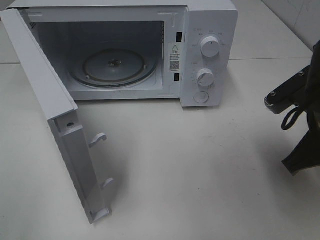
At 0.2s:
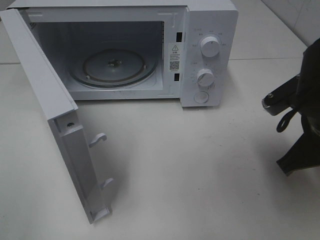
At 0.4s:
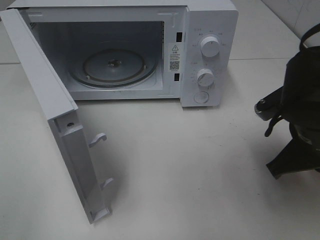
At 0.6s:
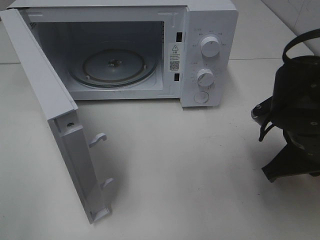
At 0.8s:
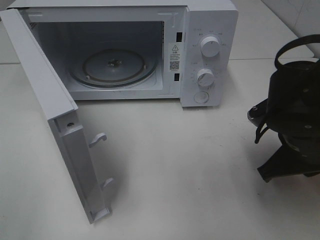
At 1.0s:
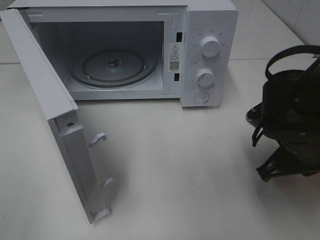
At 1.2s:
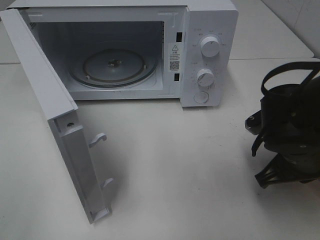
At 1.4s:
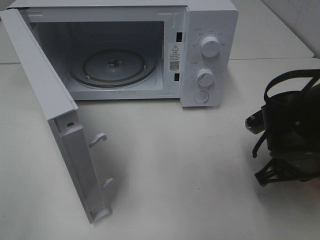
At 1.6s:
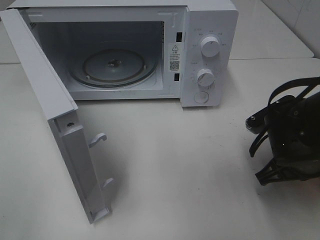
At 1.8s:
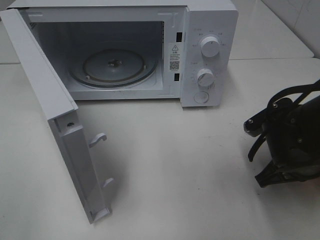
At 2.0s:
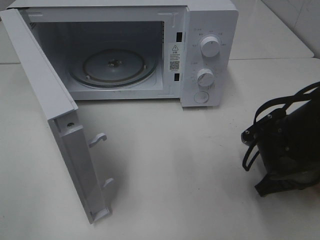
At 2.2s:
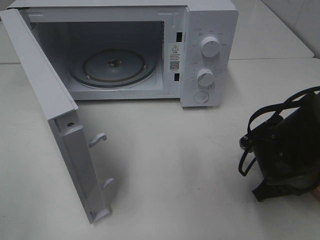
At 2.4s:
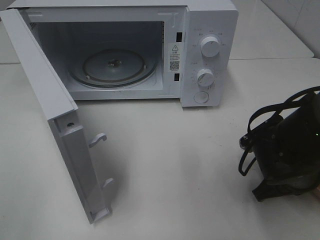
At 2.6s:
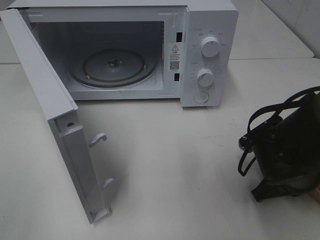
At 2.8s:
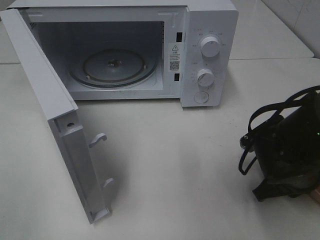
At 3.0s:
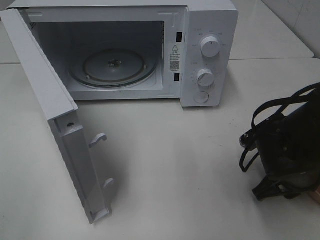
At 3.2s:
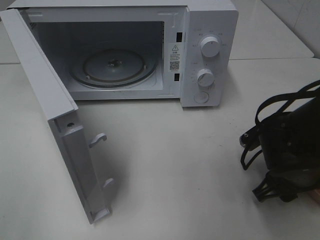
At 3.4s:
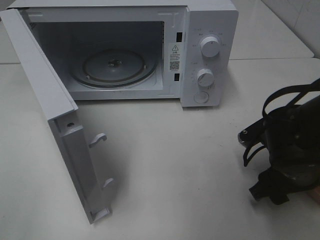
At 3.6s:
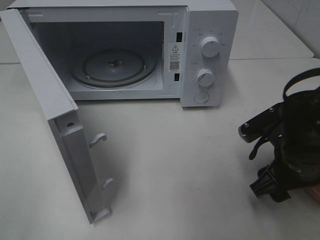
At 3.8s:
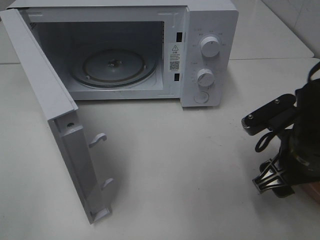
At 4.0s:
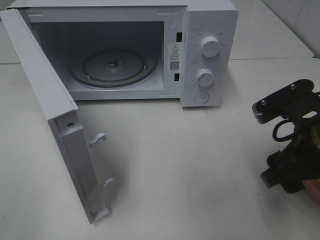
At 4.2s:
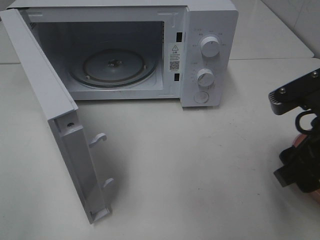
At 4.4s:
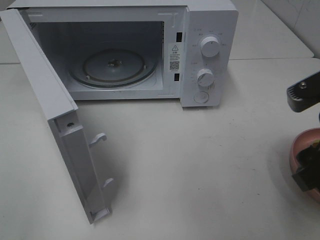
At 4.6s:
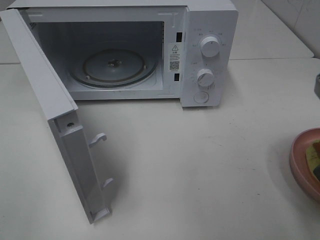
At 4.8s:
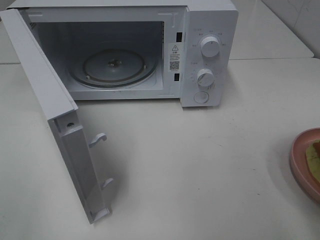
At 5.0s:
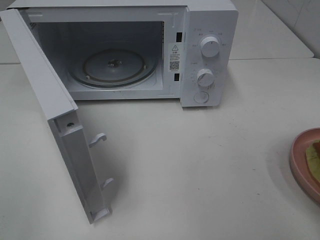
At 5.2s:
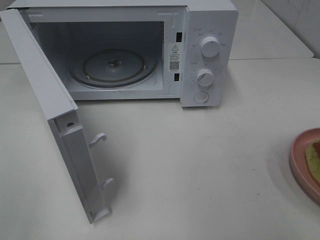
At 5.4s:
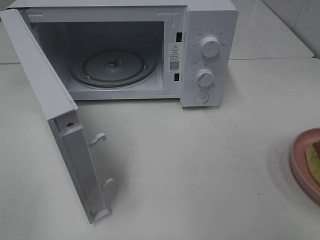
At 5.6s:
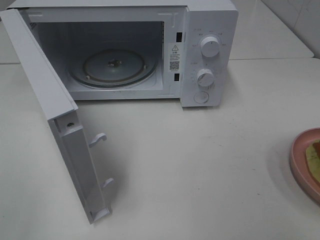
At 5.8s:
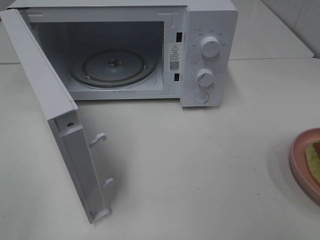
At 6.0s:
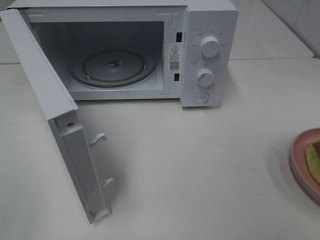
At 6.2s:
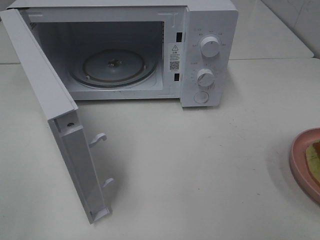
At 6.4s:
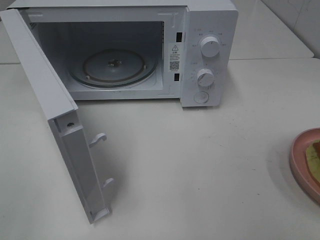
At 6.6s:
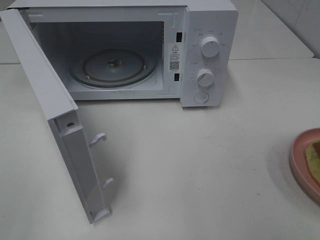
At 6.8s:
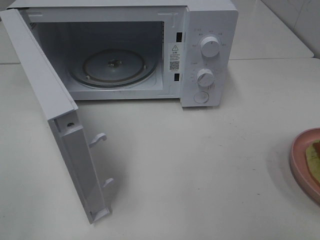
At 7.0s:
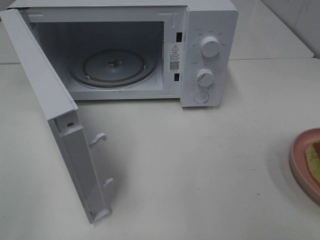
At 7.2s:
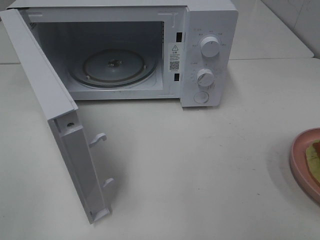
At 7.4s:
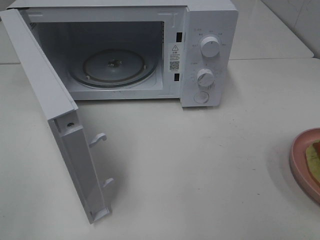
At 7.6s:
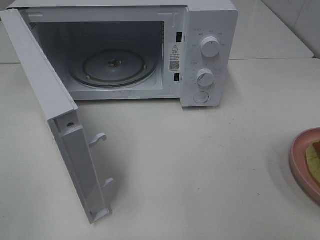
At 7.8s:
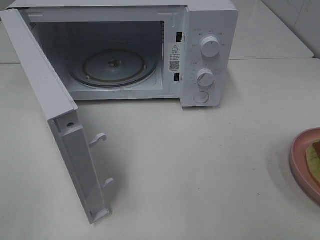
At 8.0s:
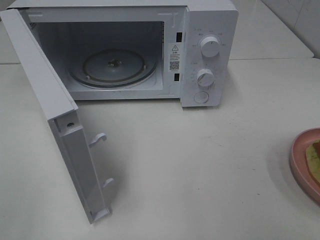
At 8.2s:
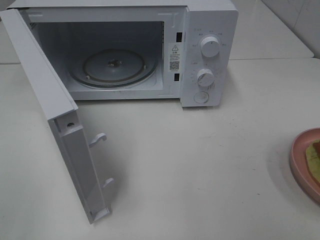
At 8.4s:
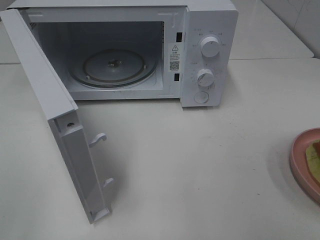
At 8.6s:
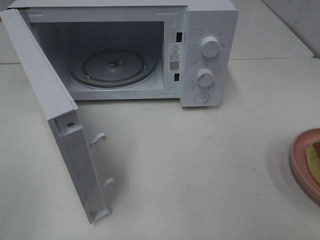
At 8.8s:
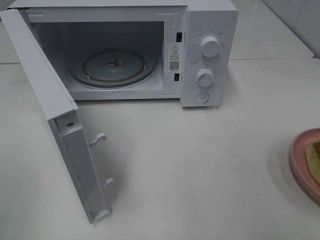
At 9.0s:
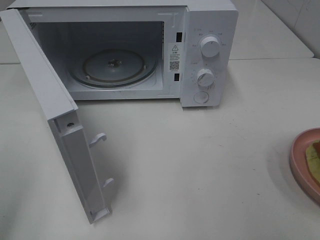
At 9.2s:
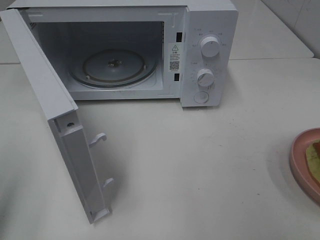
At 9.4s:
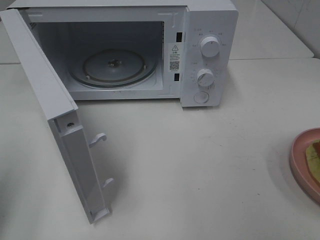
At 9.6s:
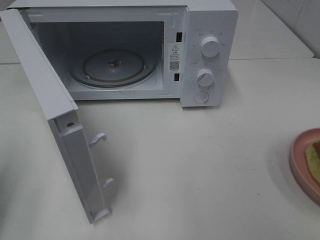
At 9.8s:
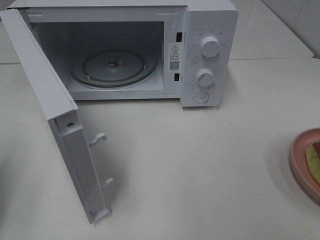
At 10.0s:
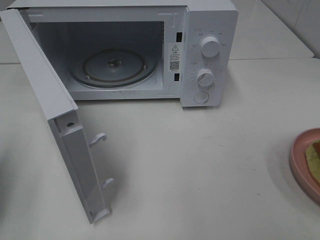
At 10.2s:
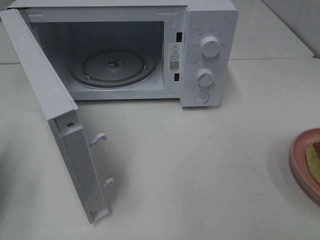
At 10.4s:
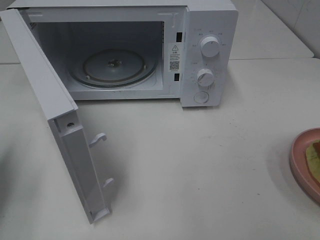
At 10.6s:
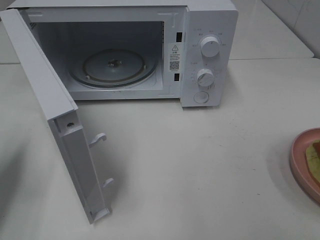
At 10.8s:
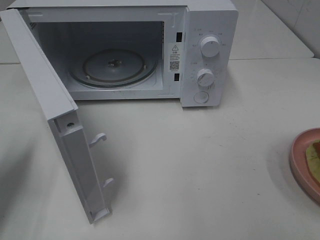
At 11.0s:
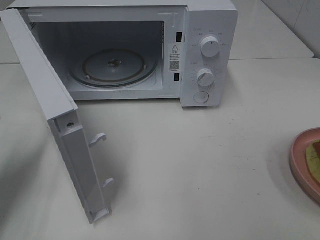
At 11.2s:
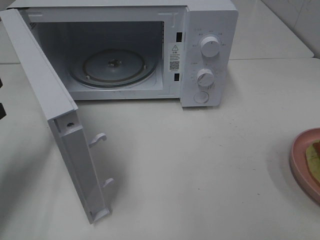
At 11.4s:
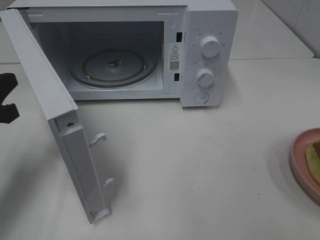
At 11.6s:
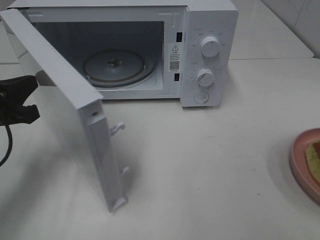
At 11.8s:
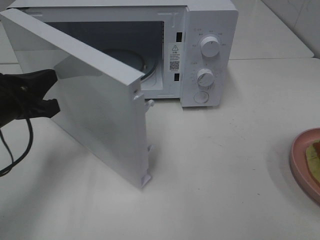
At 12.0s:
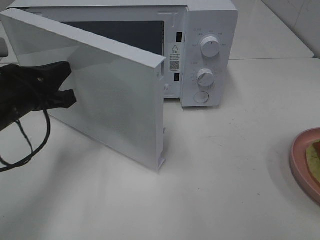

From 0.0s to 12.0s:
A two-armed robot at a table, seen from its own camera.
Task of the whole recording: Heat Sandwich.
Step, from 0.0s to 4.4s: Right hand: place the plate on the table.
From 0.0s to 1.6s: The right gripper travels downward by roughly 10 cm.
From 1.6s to 3.0s: The right gripper opens its fingers.
From 3.0s to 4.4s: The right gripper heads upward and backward, covering approximately 15 cm.
From 4.4s to 6.0s: The right gripper heads backward, to the right and upward, covering approximately 20 cm.
From 9.0s to 10.4s: The left gripper shifts about 15 cm forward and downward, and closes its fingers.
From 10.4s to 12.0s: The left gripper travels to the right and forward by approximately 15 cm.

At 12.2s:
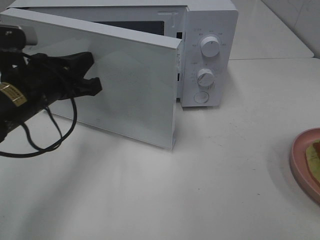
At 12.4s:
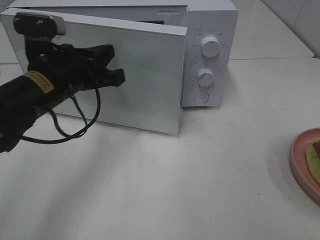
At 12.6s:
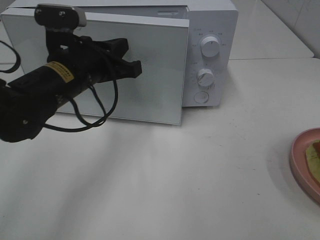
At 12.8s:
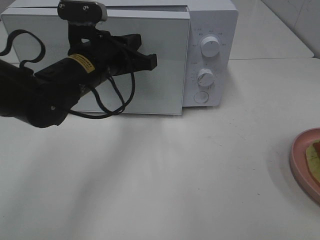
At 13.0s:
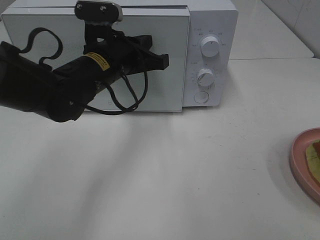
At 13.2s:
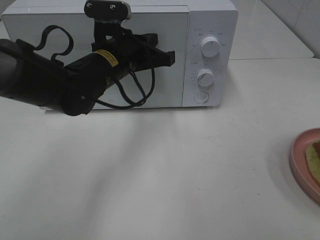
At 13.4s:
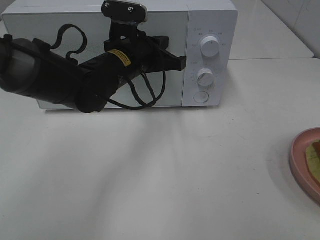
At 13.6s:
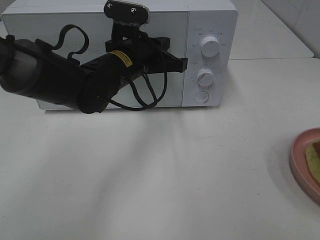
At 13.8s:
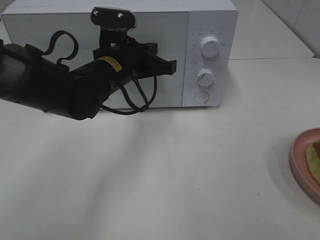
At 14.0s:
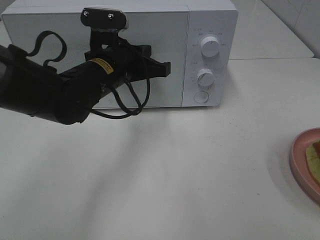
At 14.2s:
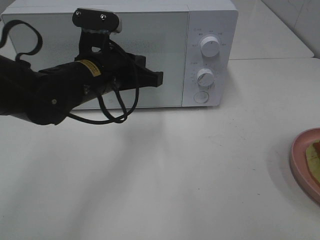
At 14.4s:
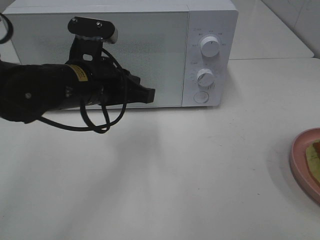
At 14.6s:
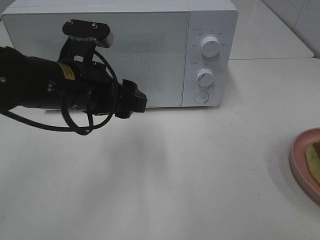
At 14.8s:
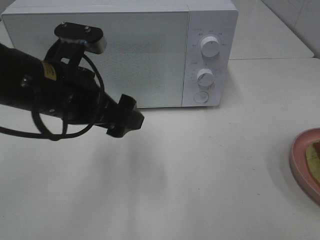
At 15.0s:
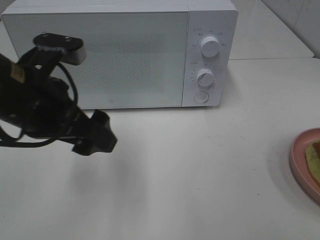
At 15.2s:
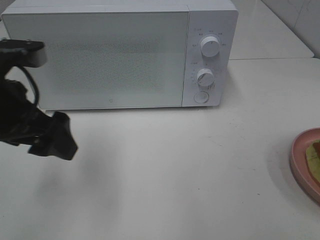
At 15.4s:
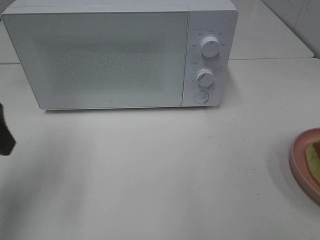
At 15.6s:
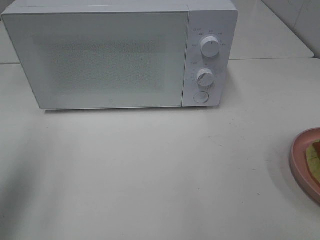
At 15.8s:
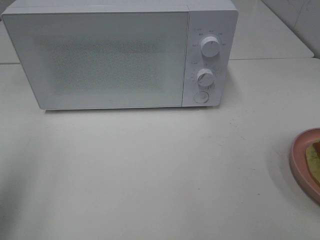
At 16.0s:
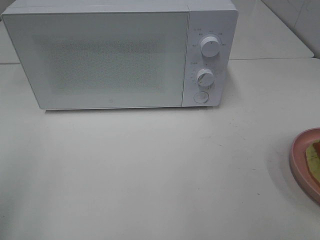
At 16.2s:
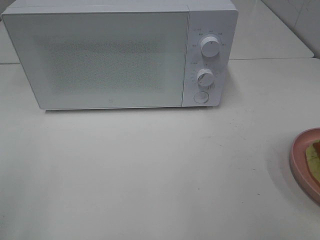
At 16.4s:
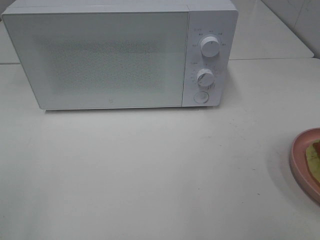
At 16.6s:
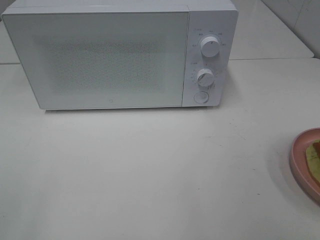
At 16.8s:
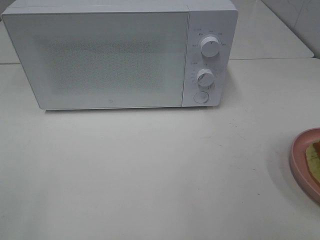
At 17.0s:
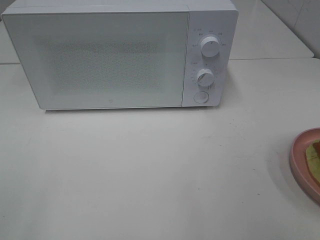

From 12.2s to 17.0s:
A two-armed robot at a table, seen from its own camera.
Task of the whole recording: Heat Sandwich.
Step, from 12.2s to 14.4s: Left hand: close the microwave door.
From 12.2s to 13.8s: The left gripper goes roughly 15 cm to the right and forward.
From 13.8s to 15.4s: The left gripper shifts roughly 25 cm to the left, backward and upward, and opens its fingers.
From 15.4s to 17.0s: The left gripper shifts about 20 cm backward.

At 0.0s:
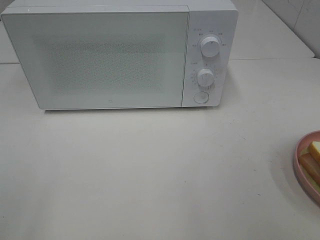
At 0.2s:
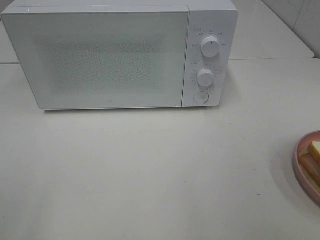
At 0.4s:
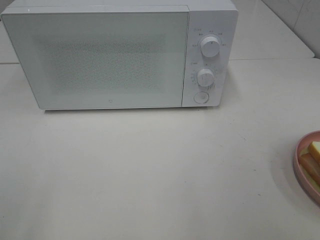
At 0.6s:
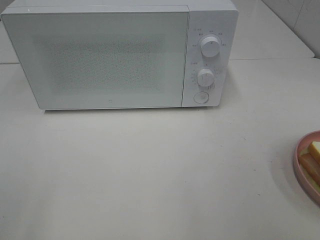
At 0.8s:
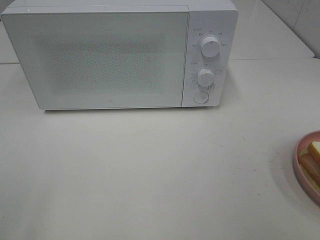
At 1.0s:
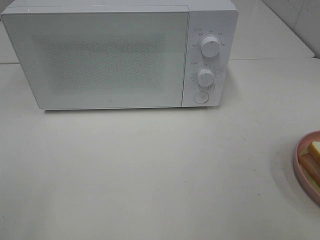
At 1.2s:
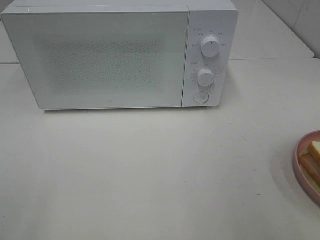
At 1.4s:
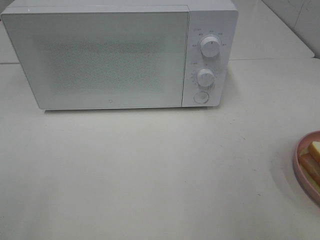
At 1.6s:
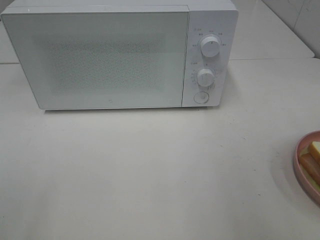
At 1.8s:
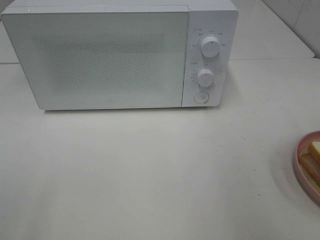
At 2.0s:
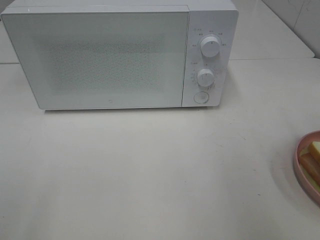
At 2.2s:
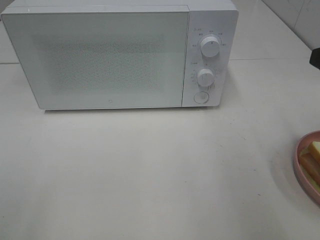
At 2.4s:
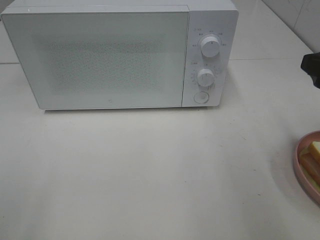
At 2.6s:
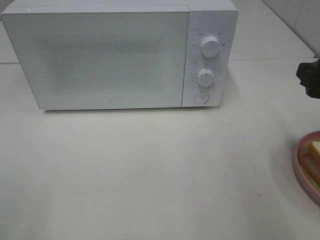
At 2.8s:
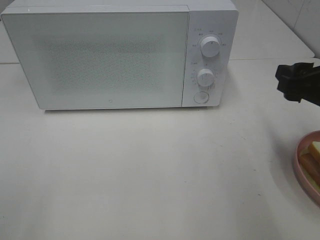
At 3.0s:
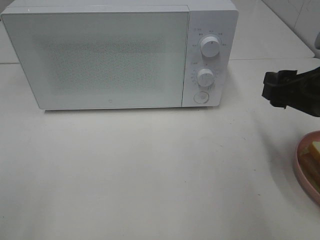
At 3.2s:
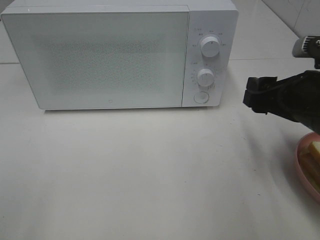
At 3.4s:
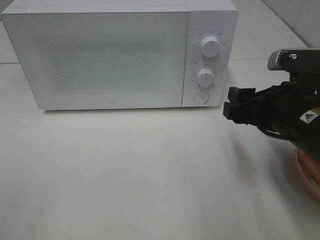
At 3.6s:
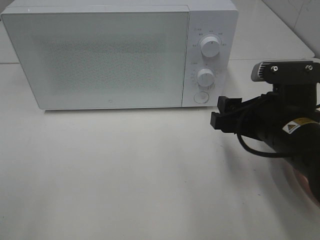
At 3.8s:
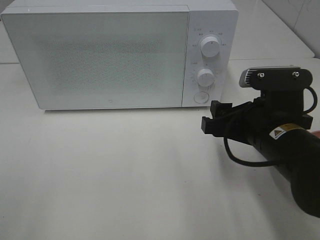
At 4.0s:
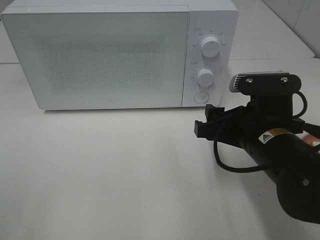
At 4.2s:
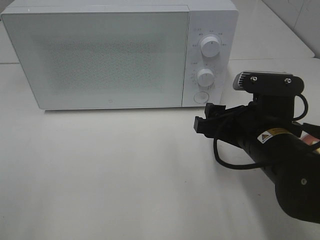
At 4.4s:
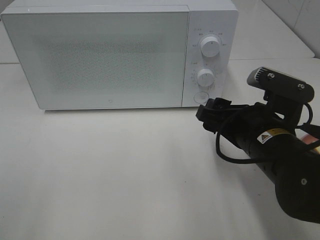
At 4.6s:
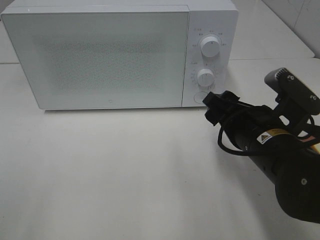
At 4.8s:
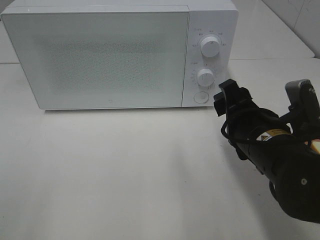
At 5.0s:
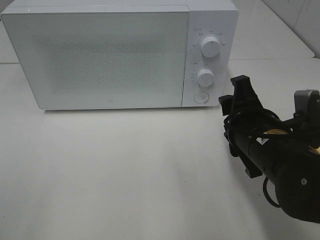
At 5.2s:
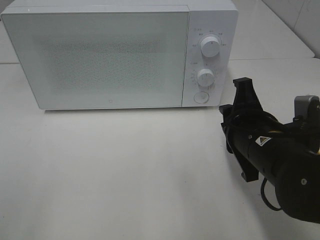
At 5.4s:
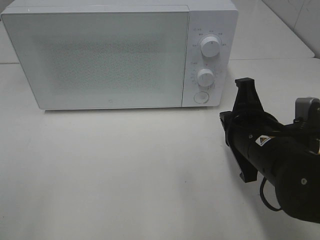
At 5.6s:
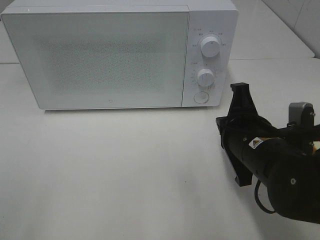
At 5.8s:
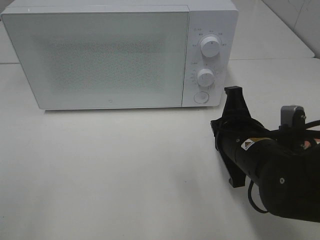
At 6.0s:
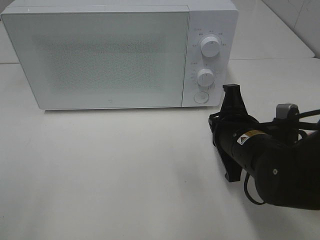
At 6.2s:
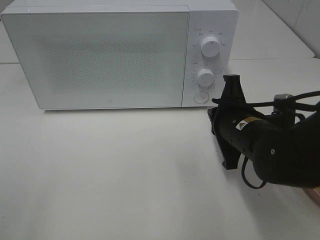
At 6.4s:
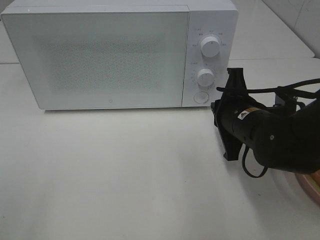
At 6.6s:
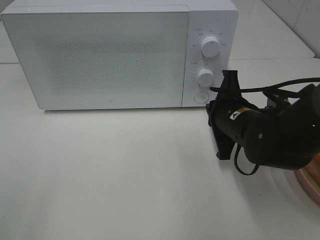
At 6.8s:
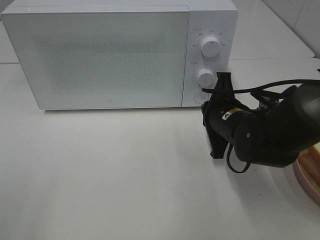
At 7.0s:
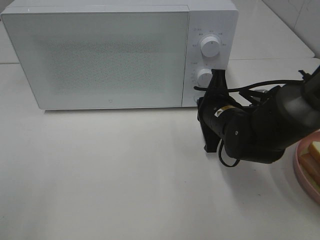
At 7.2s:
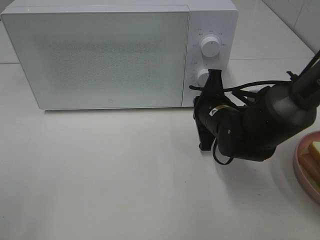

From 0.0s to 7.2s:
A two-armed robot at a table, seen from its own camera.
Task of the whole recording: Heat Sandwich.
From 1.4s to 2.8s: The right gripper travels forward and downward by about 15 cm.
From 2.8s to 4.4s: The right gripper travels to the left and downward by approximately 15 cm.
From 4.4s to 5.8s: The right gripper closes up.
From 5.8s to 7.2s: The right gripper goes approximately 10 cm forward.
